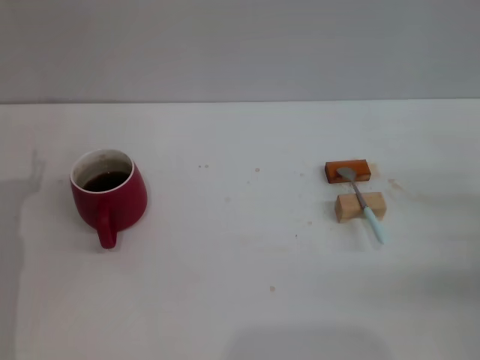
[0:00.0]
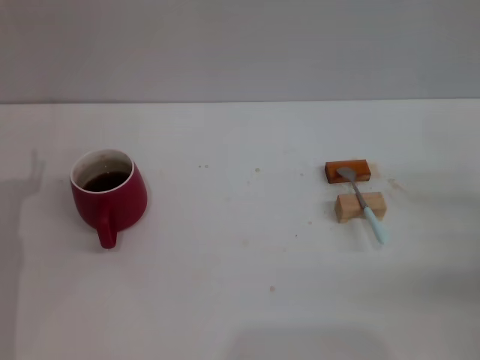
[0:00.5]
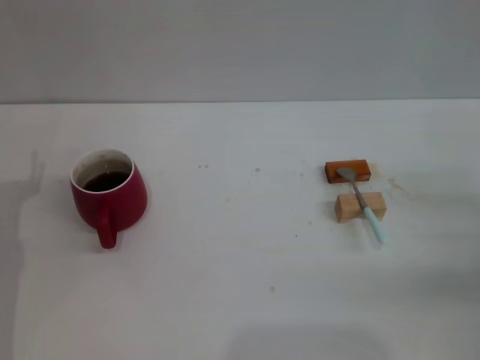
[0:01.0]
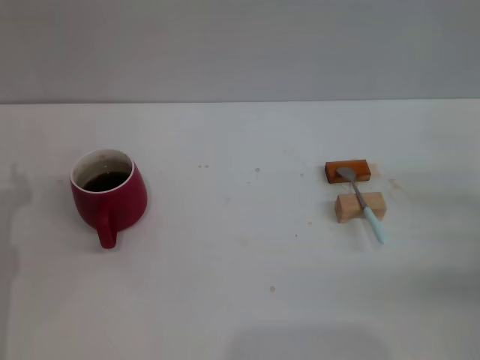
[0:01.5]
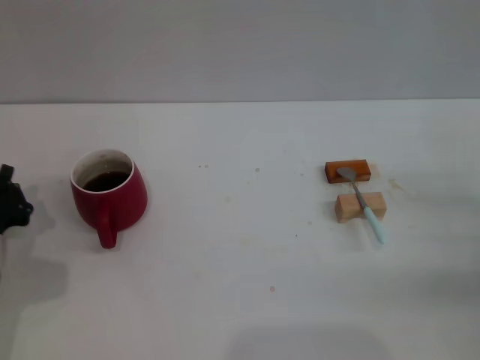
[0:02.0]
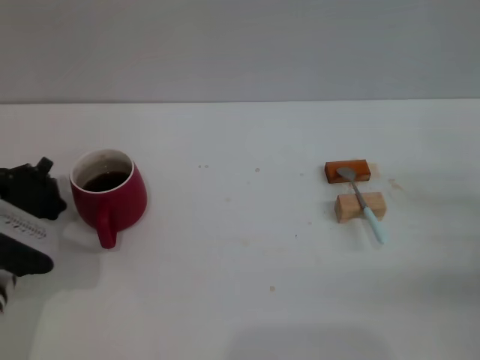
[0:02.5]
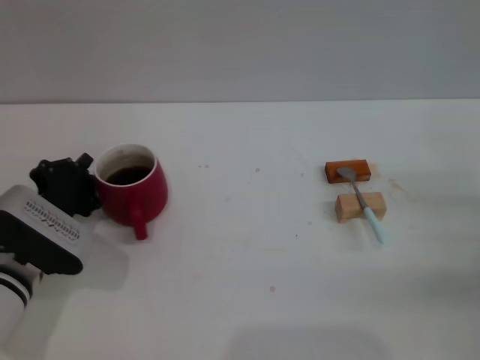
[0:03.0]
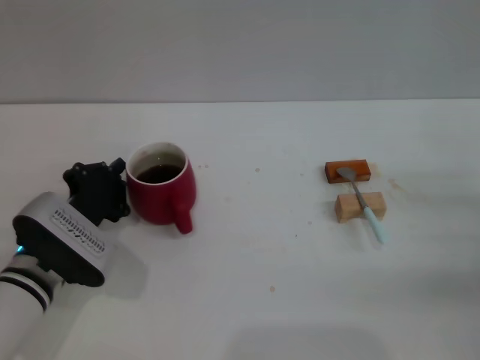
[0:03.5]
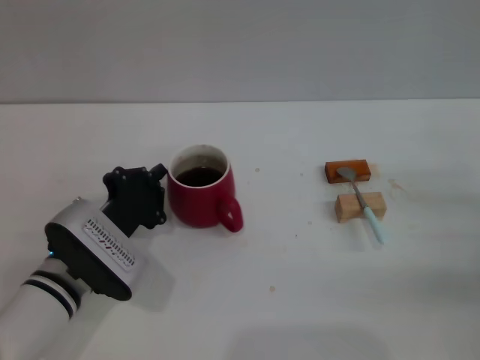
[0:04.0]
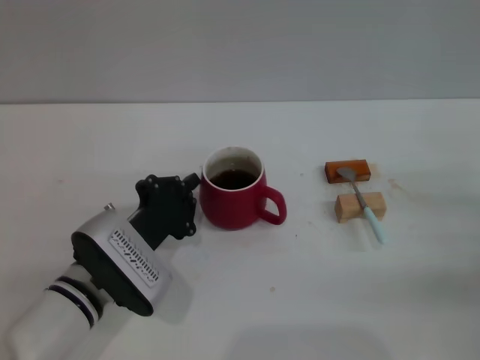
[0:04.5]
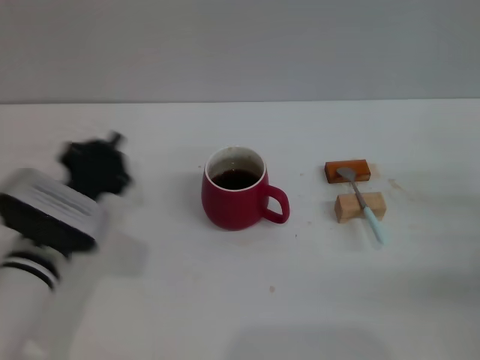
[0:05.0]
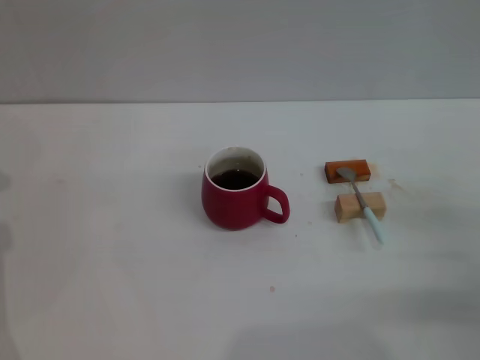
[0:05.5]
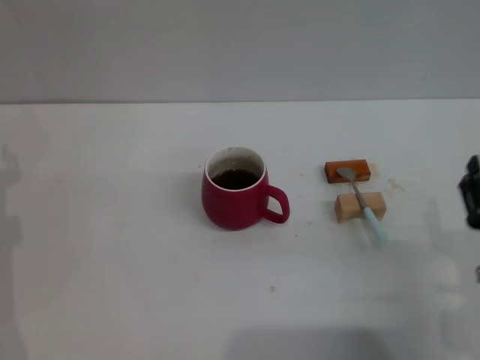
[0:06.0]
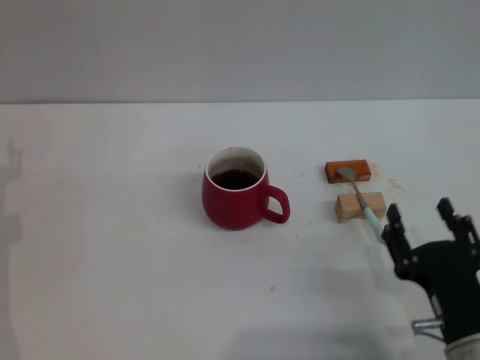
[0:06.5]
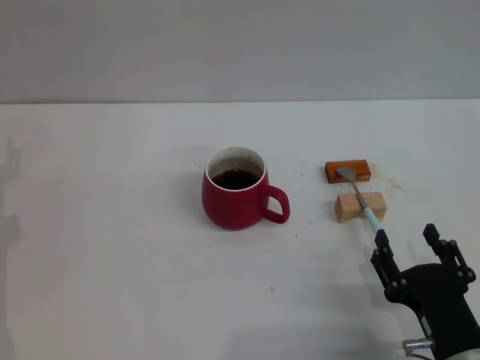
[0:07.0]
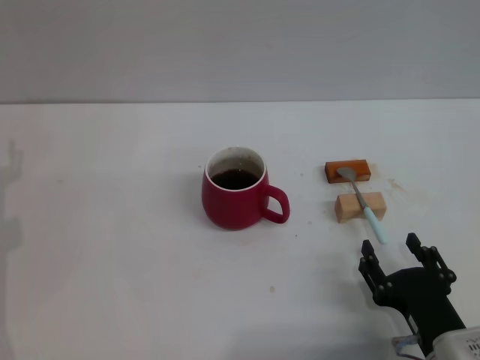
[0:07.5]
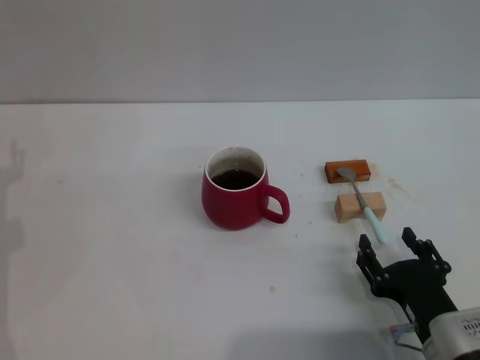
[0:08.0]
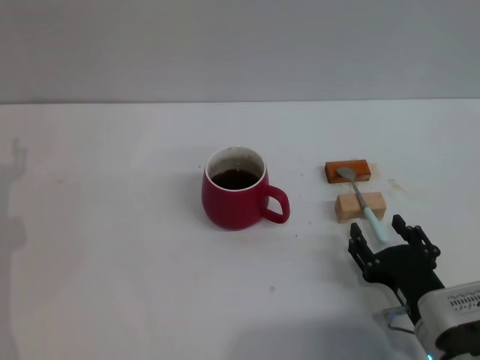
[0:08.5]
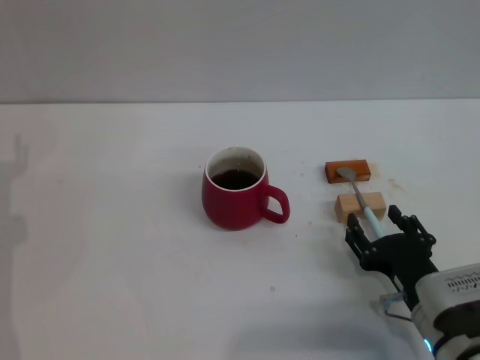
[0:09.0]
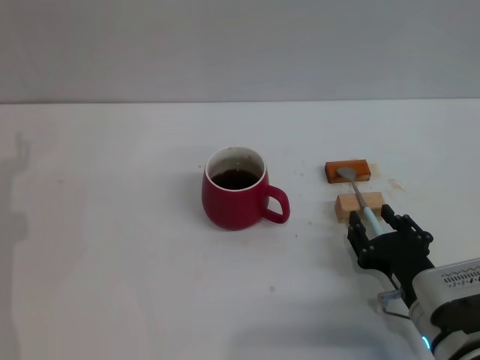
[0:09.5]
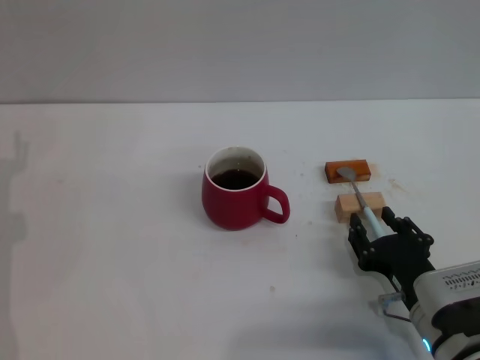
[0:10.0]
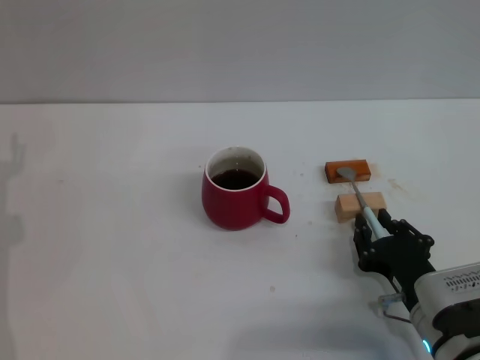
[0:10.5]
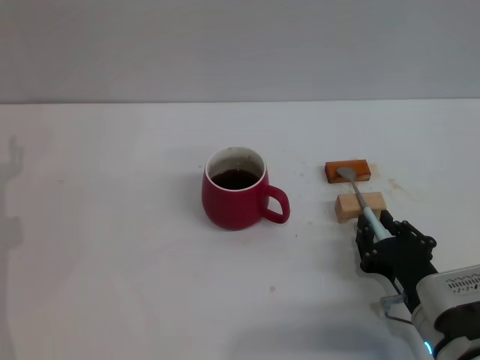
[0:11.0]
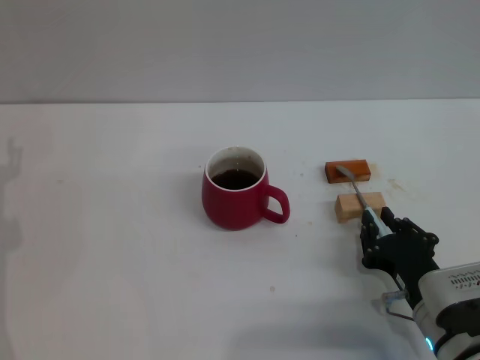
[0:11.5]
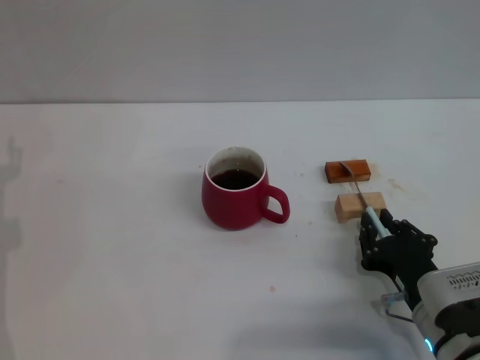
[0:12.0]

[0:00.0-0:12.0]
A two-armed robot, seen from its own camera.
Task of the whole recording: Move the red cup to the center, lift the blue spoon, stir it three times in the cup, and put the spoon into the cup.
Step, 0:01.0 to 0:04.5: Move the cup in the center of the table with left gripper.
0:00.0 to 0:02.0: The left gripper closes its fingers.
0:02.0 to 0:04.0: The left gripper moves to the right, some 10 cm.
0:04.0 to 0:06.0: The left gripper is displaced to the left by about 15 cm, and opens; the right gripper heads to the left and backward, covering approximately 15 cm.
0:06.0 to 0:08.0: The right gripper ends up some 5 cm from where it was.
0:08.0 to 0:10.0: The grippers move only a little.
0:10.0 to 0:12.0: The right gripper closes its fingers.

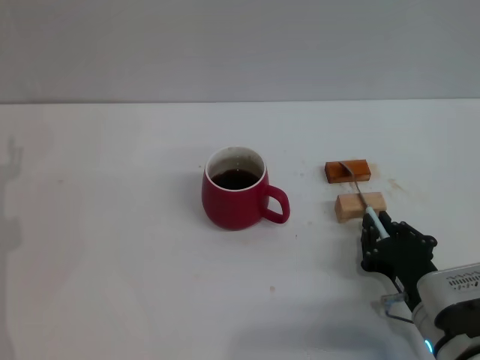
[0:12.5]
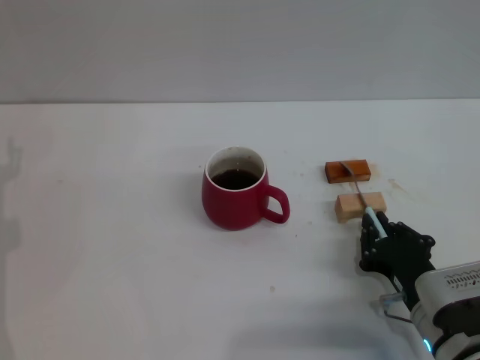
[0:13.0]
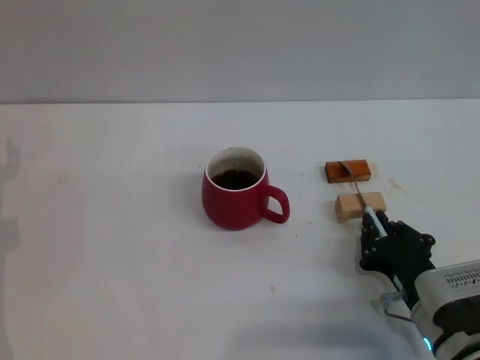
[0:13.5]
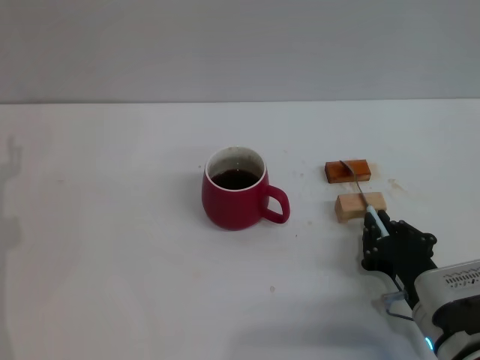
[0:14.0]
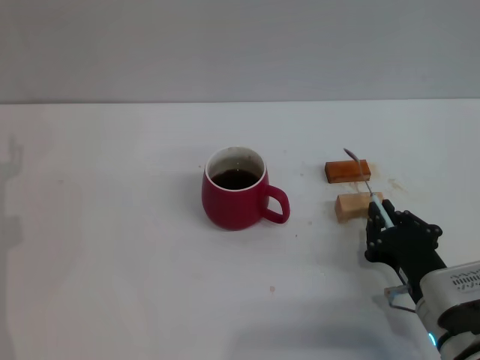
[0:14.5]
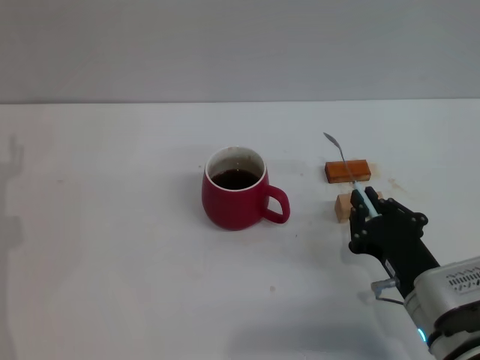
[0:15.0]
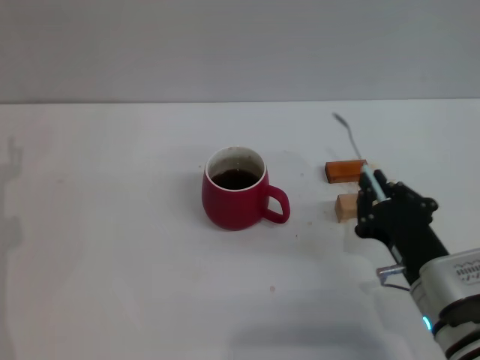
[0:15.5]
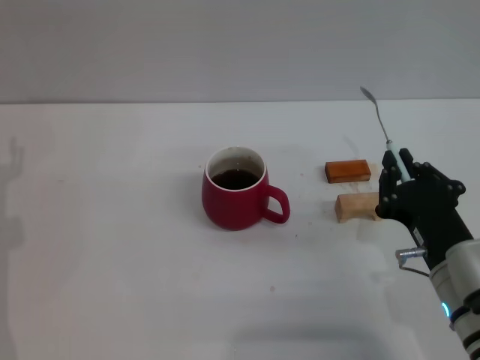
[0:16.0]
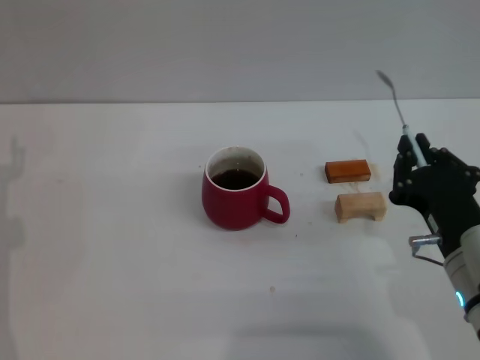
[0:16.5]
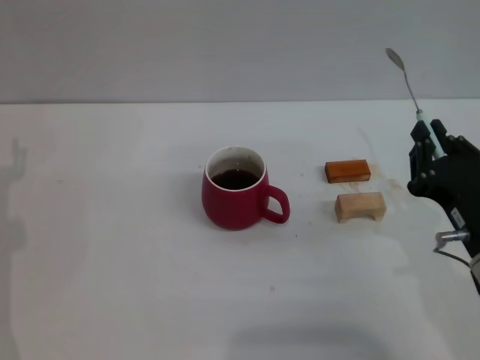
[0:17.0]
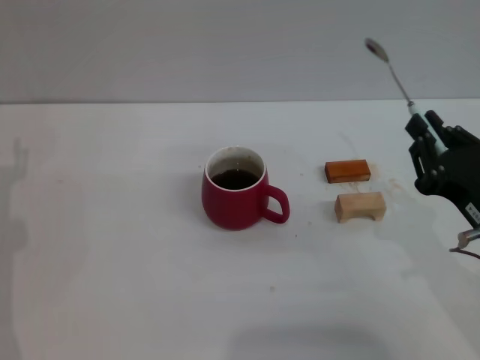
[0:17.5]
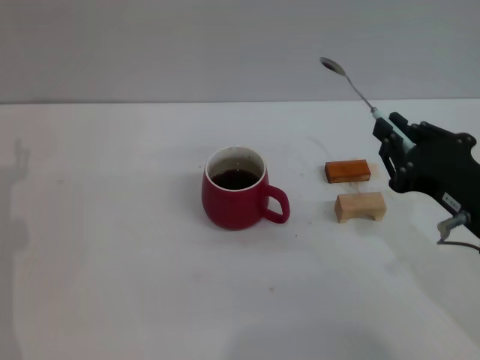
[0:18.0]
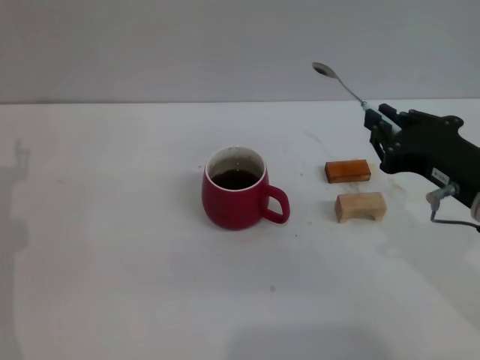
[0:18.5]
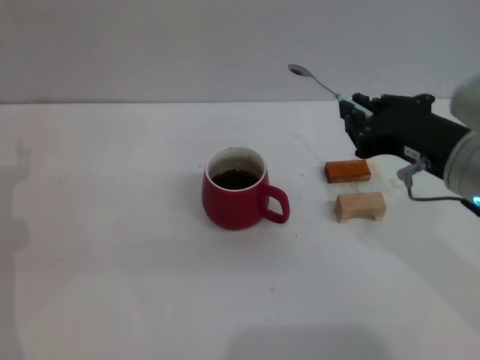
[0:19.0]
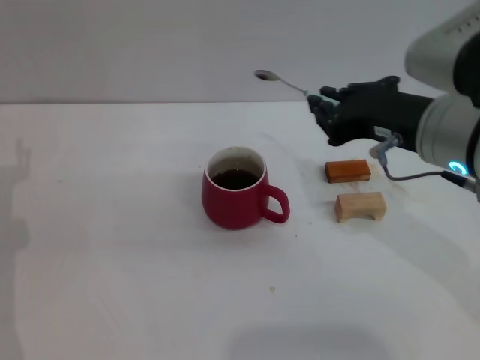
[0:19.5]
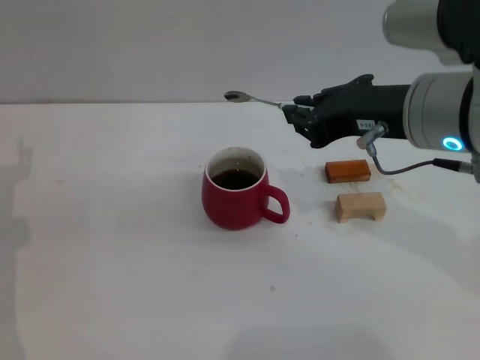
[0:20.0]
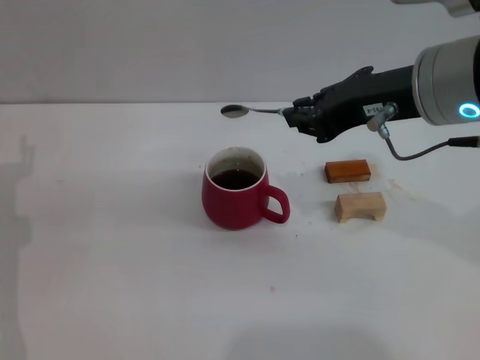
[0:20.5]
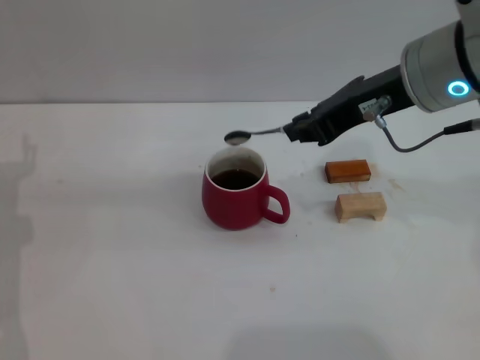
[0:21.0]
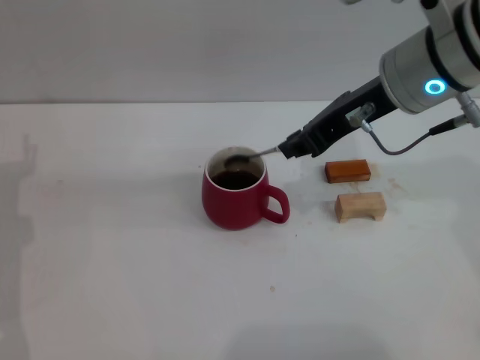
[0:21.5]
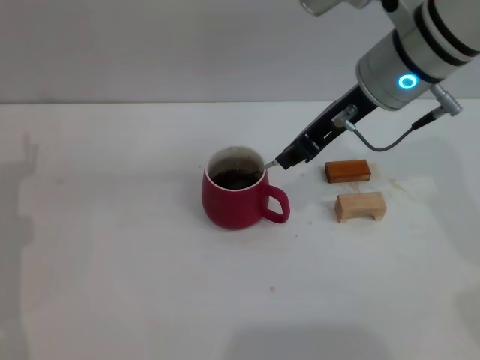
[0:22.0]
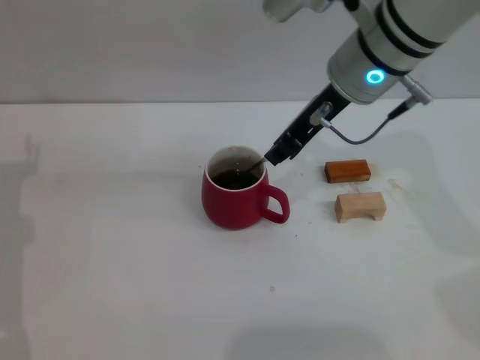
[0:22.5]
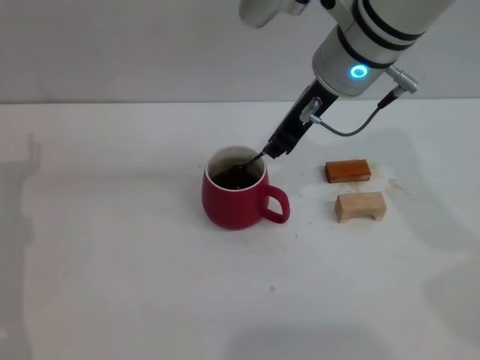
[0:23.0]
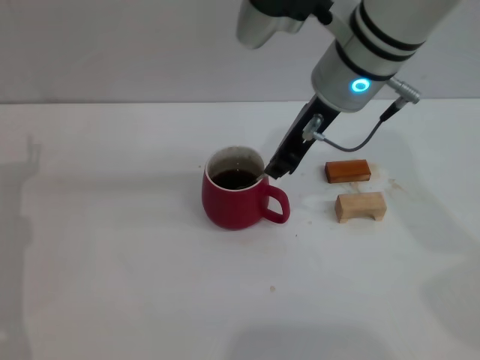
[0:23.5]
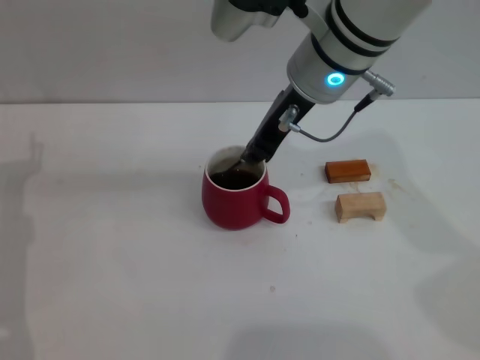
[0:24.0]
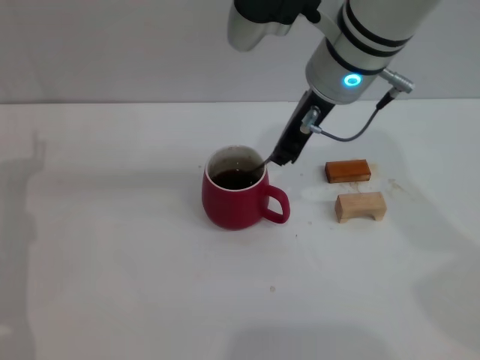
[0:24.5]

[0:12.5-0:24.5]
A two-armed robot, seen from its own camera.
Task of the whole recording: Move the red cup to the center, lift the blue spoon, stir it three times in the cup, and put the spoon into the cup.
0:12.5 to 0:14.5: Neither gripper changes place.
0:14.5 to 0:16.5: The right gripper is displaced upward by roughly 10 cm.
0:16.5 to 0:18.5: The right gripper travels upward by about 5 cm.
0:18.5 to 0:20.5: The right gripper goes approximately 15 cm upward, to the left and forward.
0:20.5 to 0:22.5: The right gripper shifts roughly 10 cm forward and to the left.
0:22.5 to 0:24.5: The grippers move only a little.

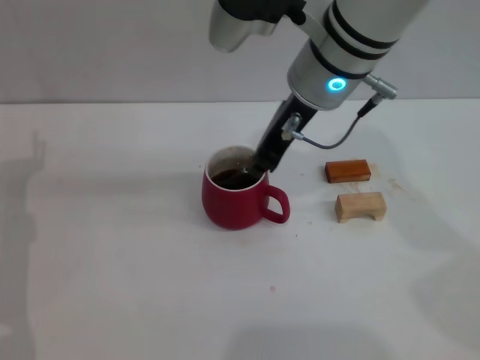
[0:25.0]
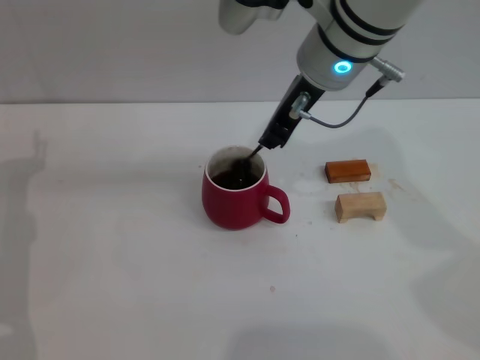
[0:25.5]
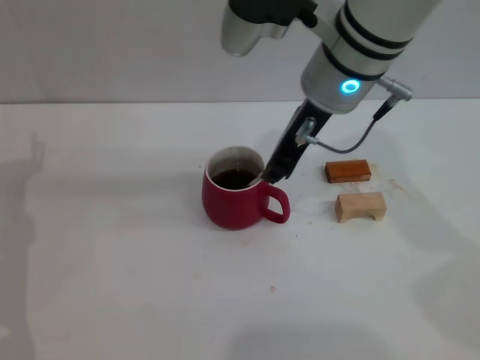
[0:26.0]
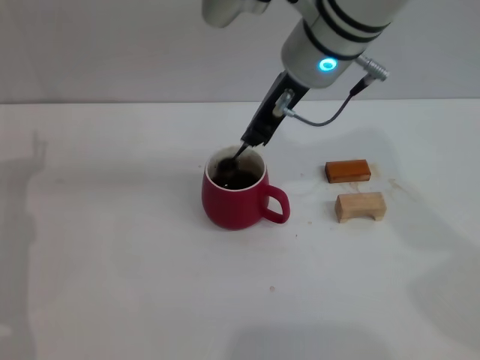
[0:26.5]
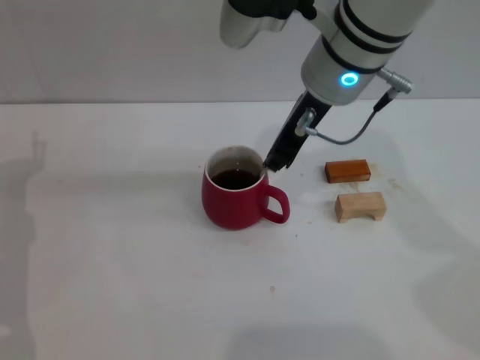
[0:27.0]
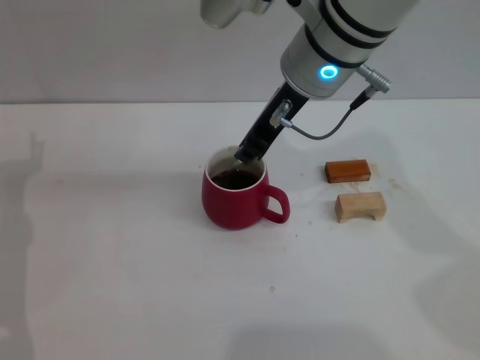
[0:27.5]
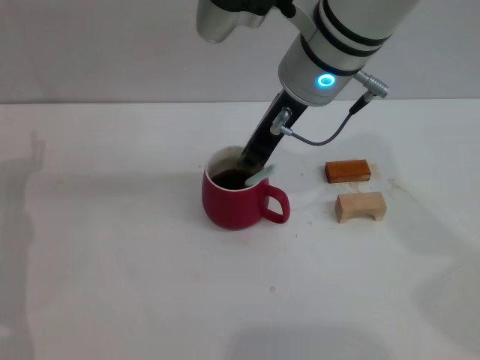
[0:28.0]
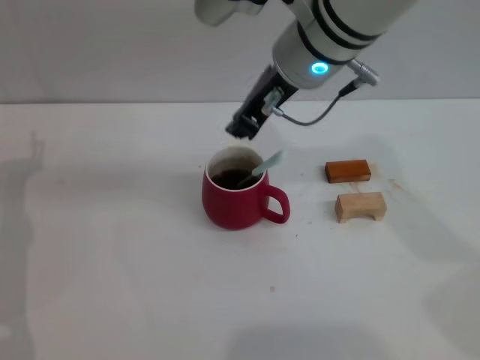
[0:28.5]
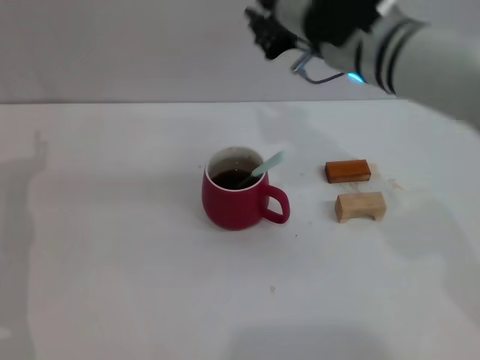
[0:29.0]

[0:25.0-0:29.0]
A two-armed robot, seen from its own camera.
Task of the whole recording: Move the red cup to the center, lift the blue spoon, stir it three times in the cup, and put the spoon into the cup.
Step, 0:25.0 to 0:28.0: Stir the coffee with right gripper.
0:25.0 to 0:27.0: The grippers stay close to where they were, moving slightly.
